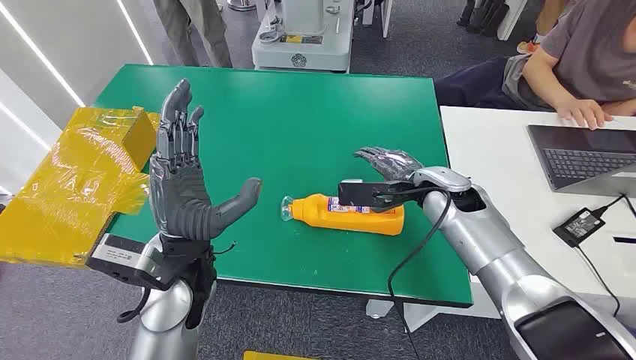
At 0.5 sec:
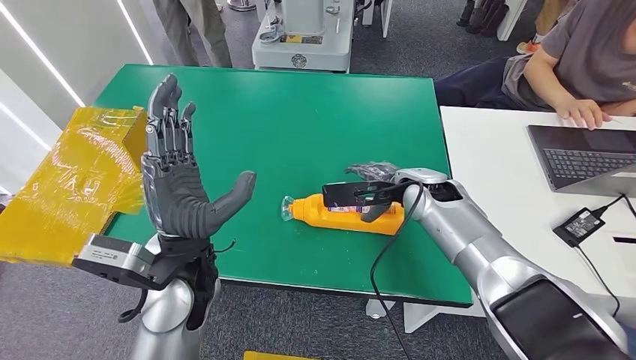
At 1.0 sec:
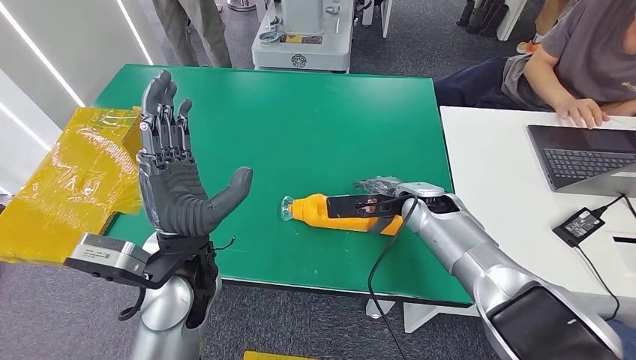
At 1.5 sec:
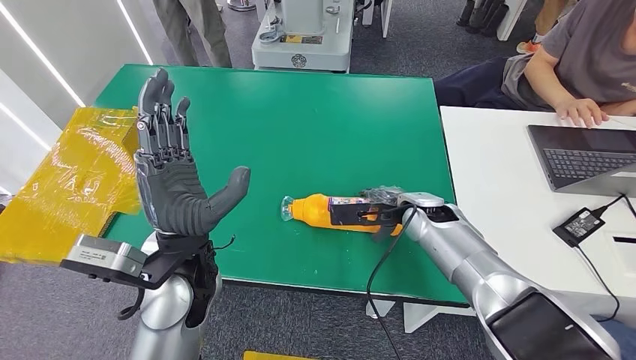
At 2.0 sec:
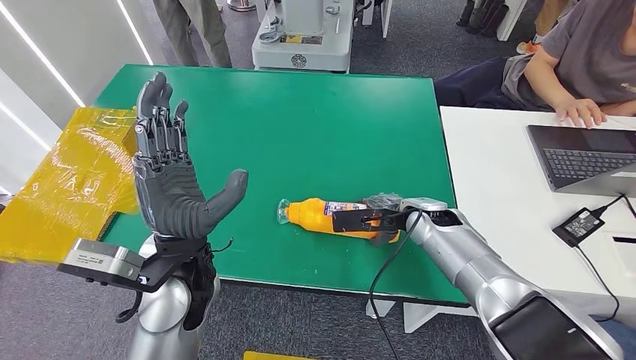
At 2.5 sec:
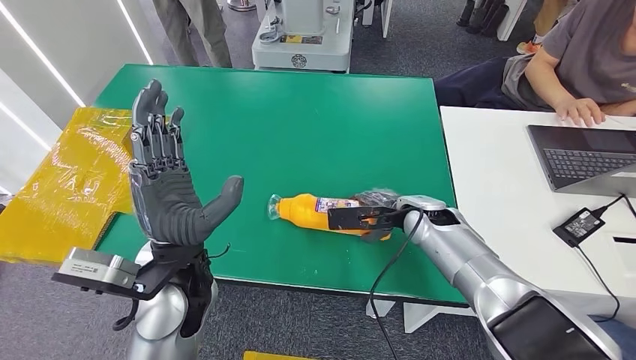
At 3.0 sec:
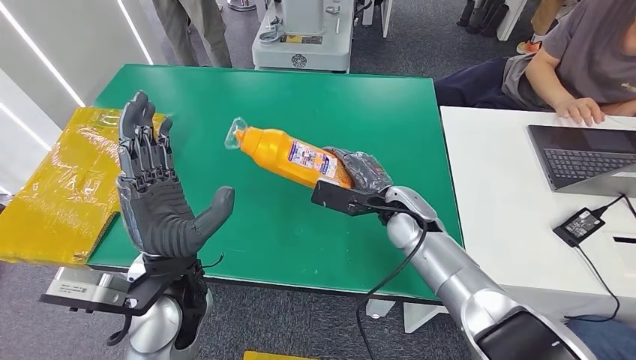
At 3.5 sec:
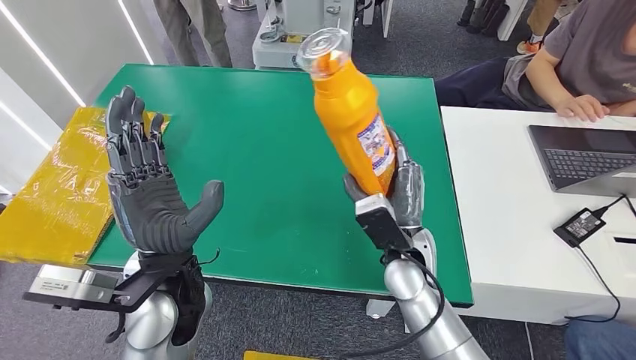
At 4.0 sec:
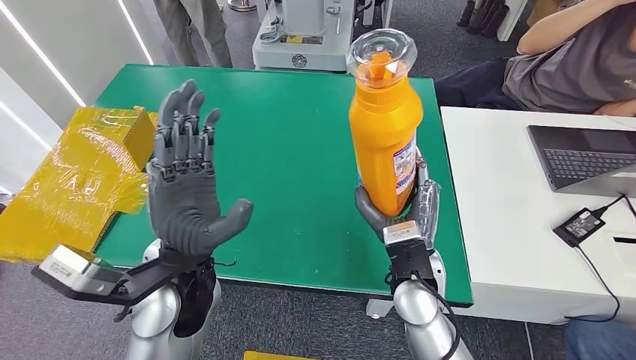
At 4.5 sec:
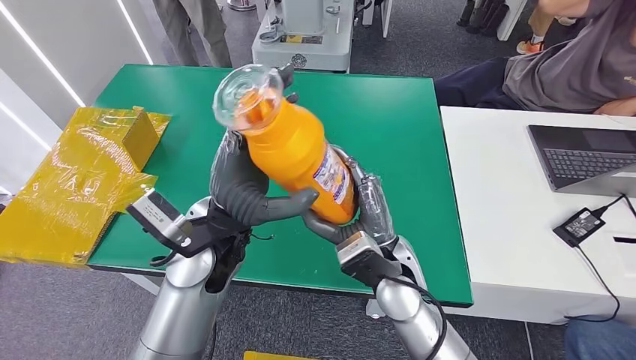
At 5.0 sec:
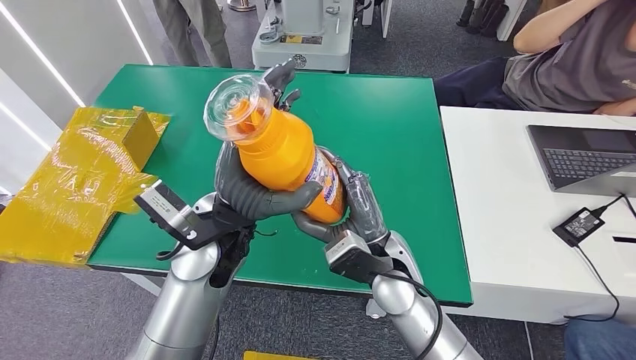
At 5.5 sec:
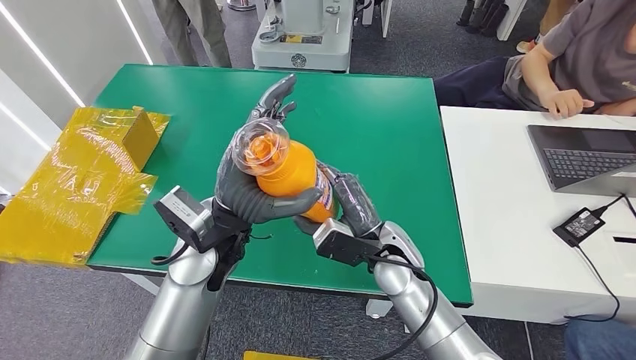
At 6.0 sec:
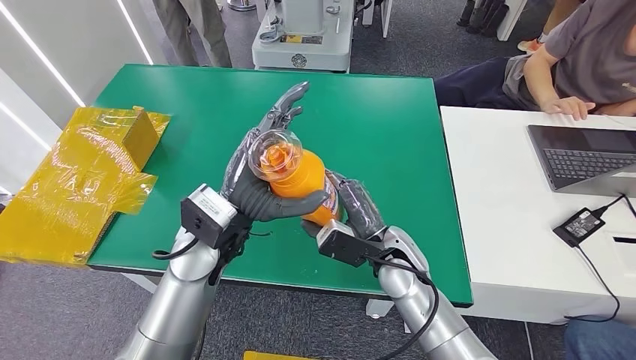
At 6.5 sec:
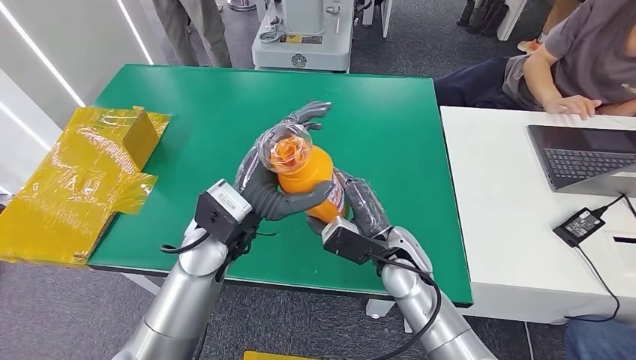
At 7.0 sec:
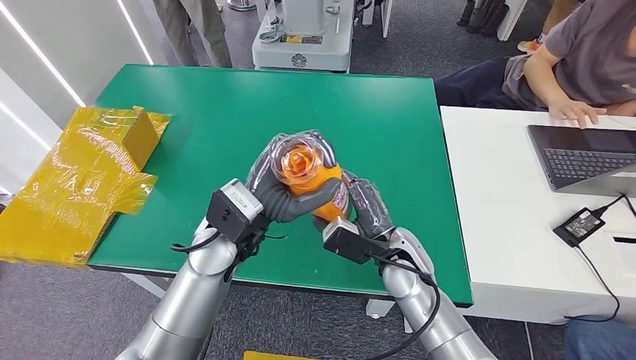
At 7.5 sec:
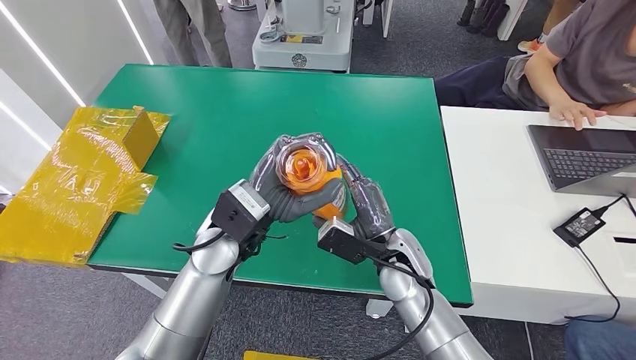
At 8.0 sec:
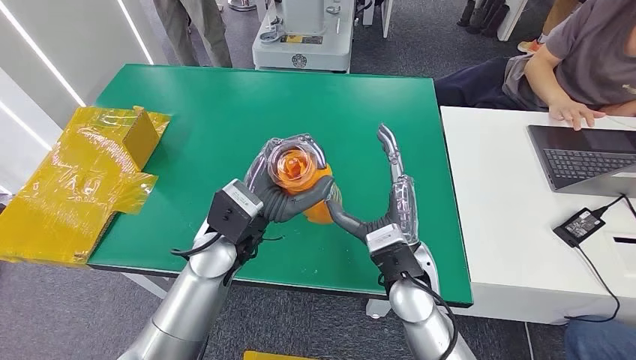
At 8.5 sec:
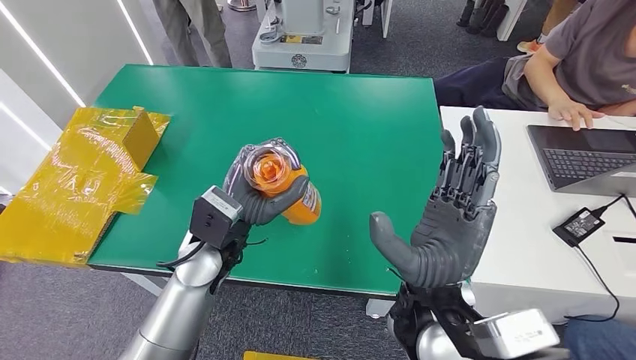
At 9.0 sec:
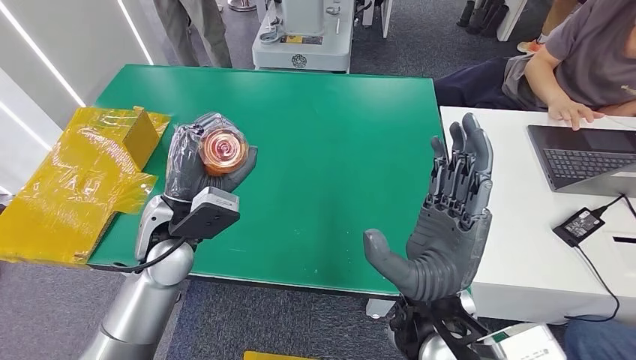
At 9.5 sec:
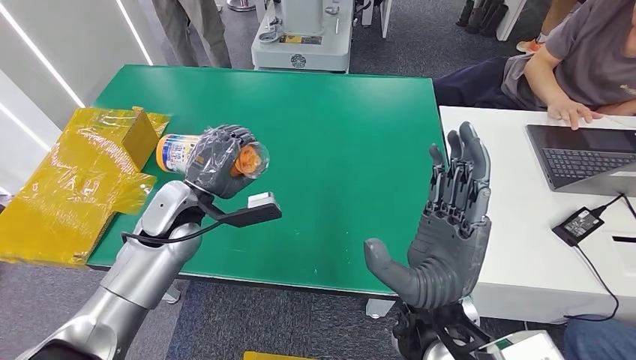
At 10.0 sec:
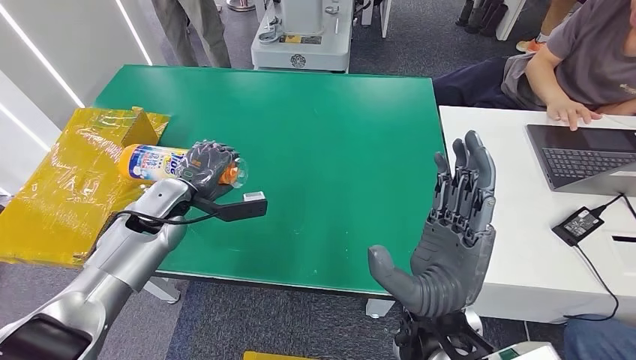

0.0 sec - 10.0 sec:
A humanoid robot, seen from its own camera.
Step, 0.0 sec - 3.5 sec: Pick up the bottle from the table.
Step, 5.0 sec - 10.0 sec: Turn the bottle to the front side.
